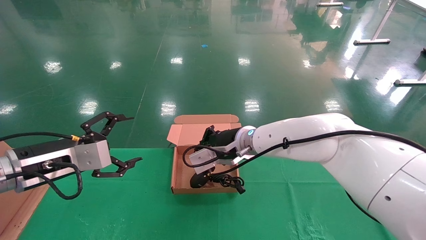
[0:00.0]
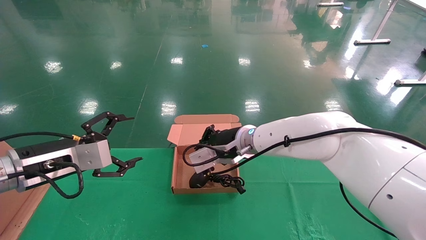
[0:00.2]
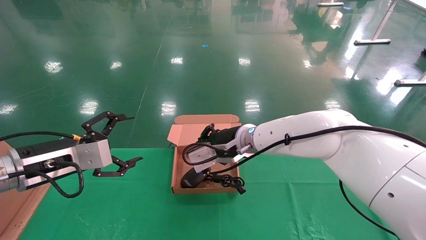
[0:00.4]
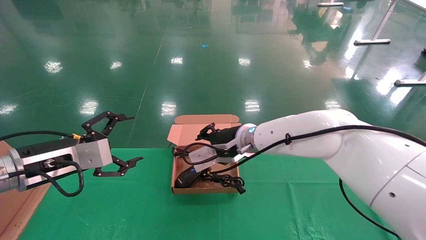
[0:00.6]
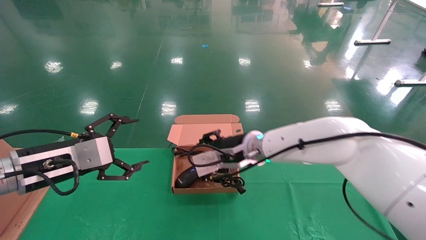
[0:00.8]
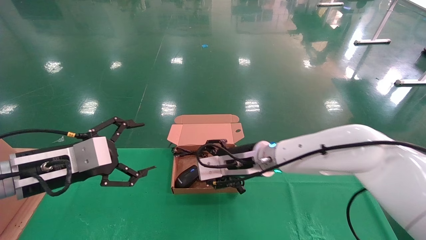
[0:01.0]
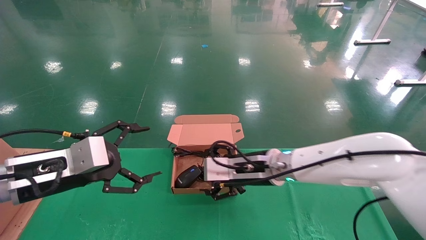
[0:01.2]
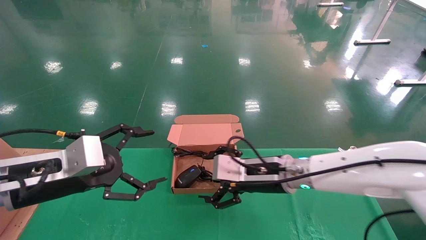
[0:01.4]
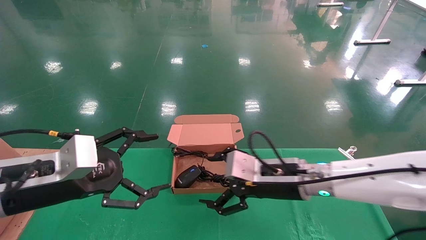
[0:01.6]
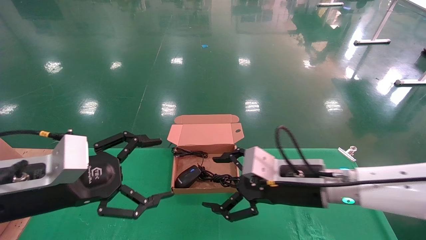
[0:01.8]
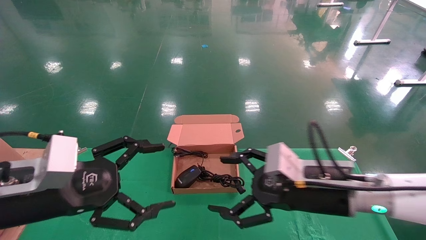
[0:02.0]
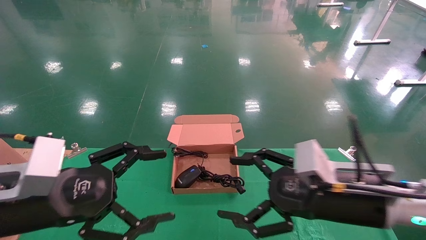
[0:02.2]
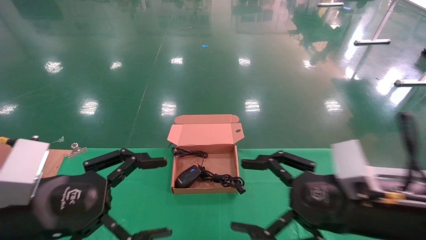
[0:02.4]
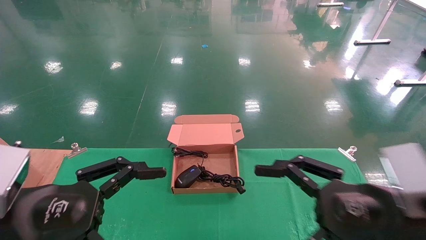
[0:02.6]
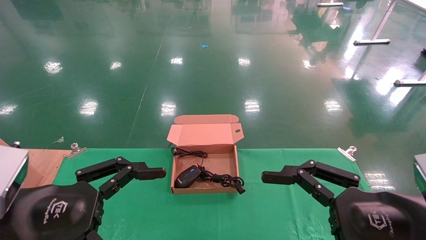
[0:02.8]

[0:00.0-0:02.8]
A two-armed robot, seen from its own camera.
0:00.0 to 0:01.4: The right gripper travels to the right and backward by some 10 cm, and opens, while the left gripper ends up about 5 cm from where it was.
0:01.4 to 0:02.8: The right gripper heads backward and to the right, covering approximately 25 cm. The left gripper is displaced backward by some 10 cm.
